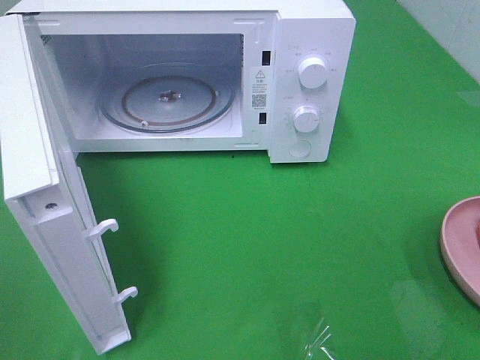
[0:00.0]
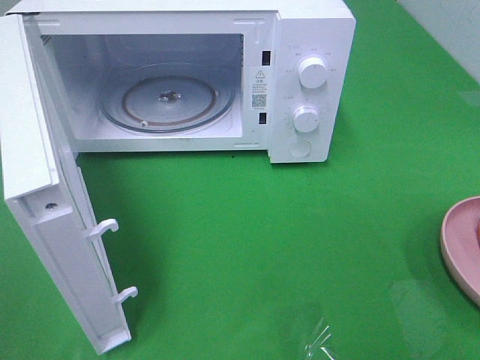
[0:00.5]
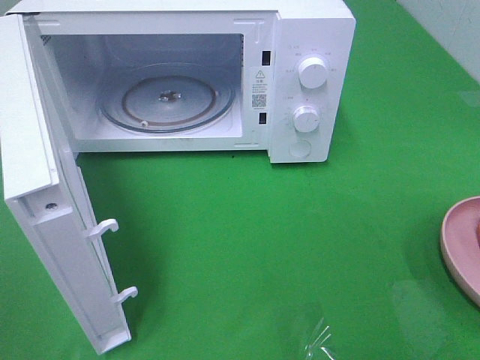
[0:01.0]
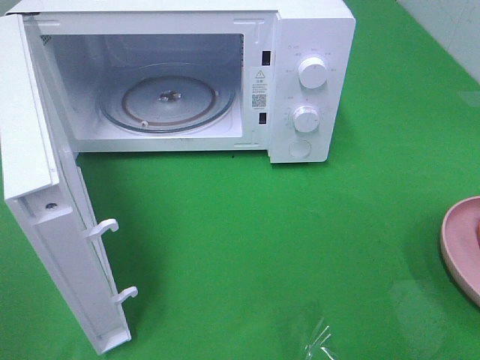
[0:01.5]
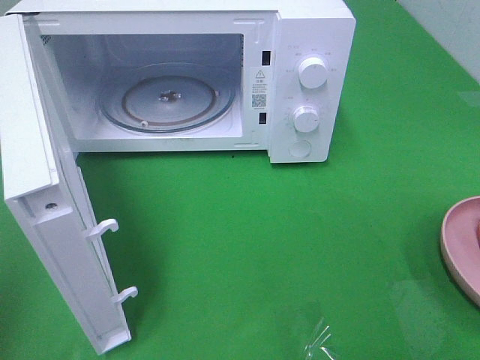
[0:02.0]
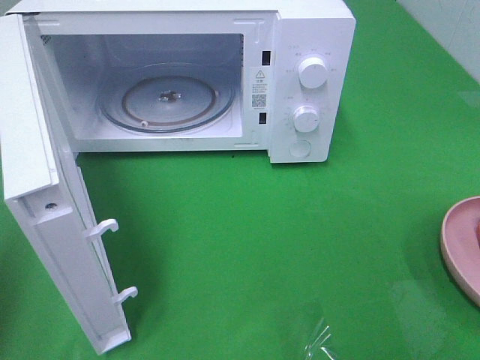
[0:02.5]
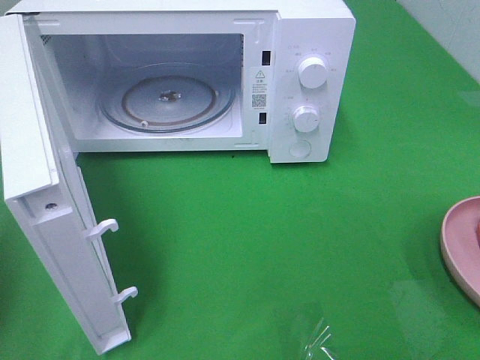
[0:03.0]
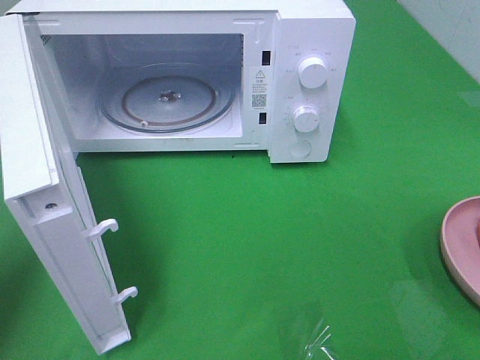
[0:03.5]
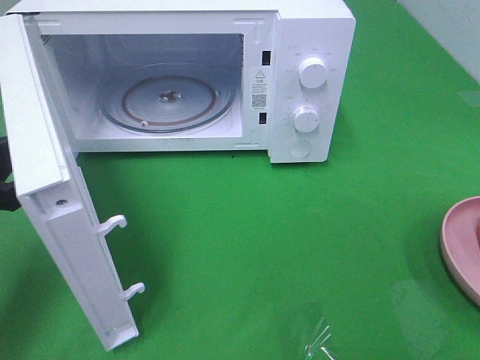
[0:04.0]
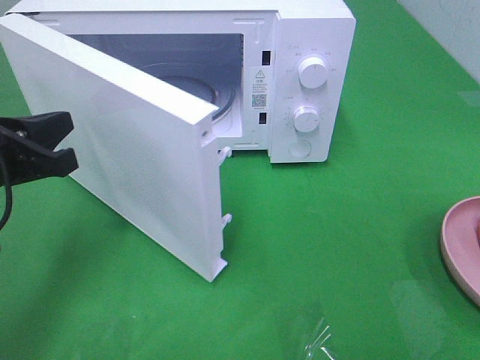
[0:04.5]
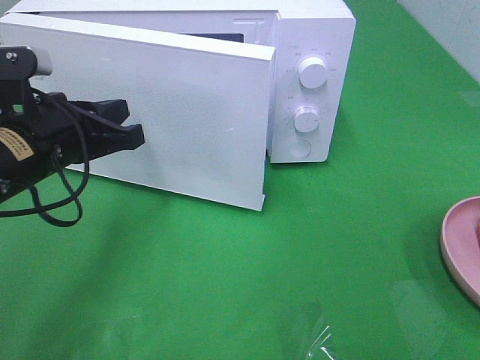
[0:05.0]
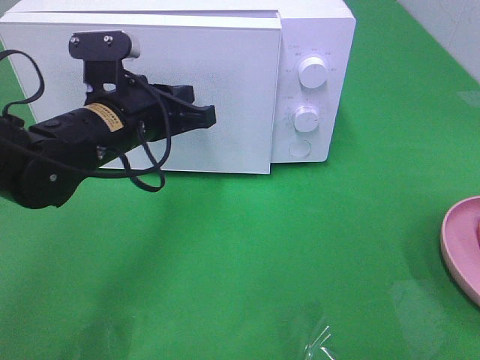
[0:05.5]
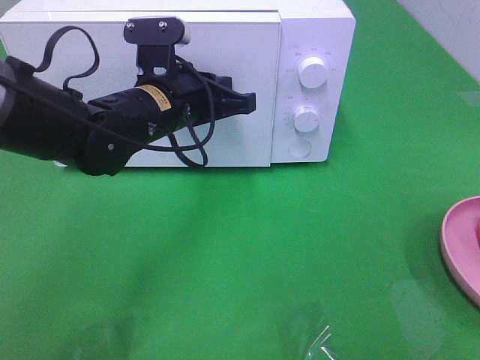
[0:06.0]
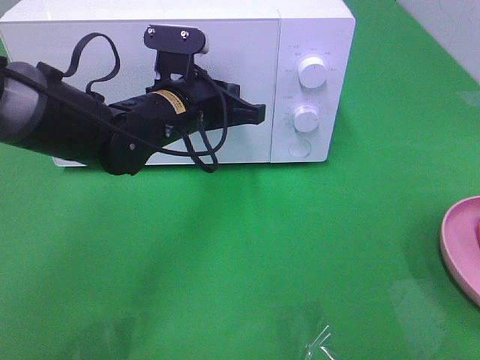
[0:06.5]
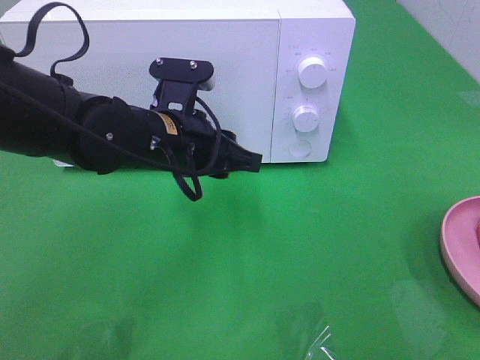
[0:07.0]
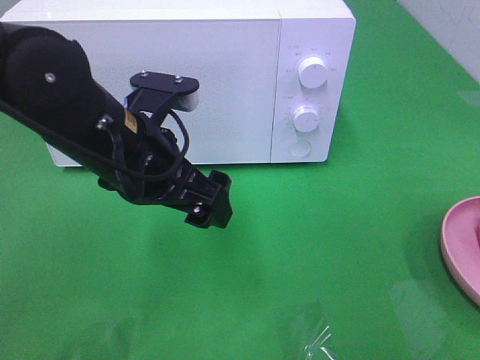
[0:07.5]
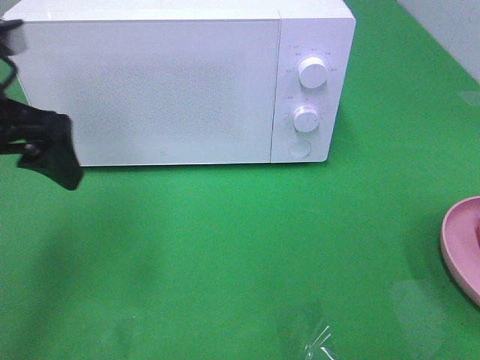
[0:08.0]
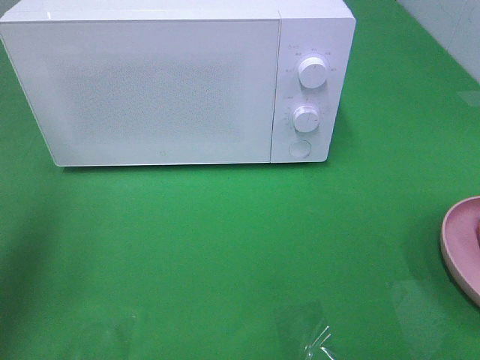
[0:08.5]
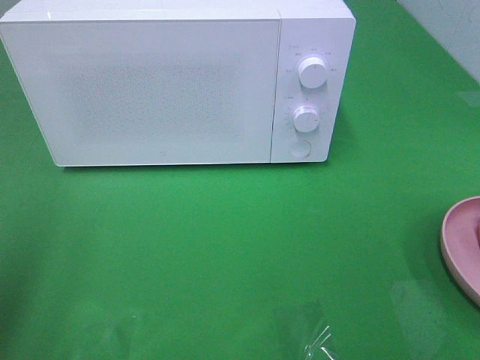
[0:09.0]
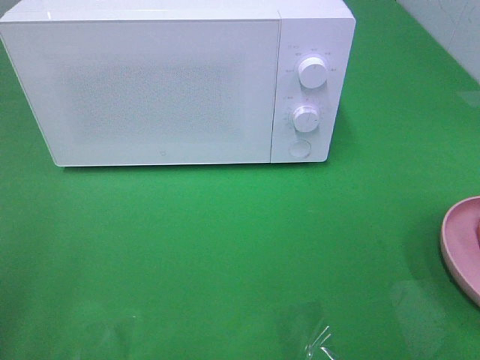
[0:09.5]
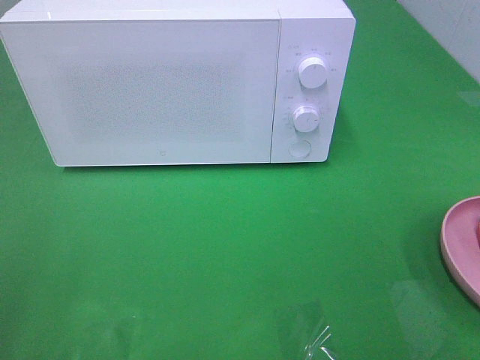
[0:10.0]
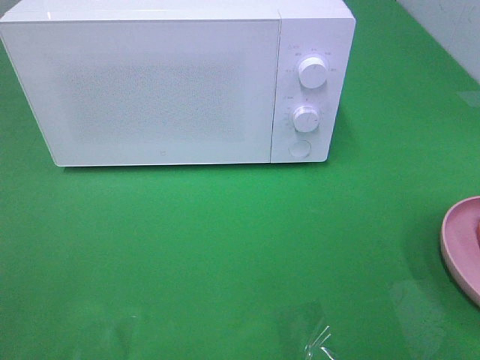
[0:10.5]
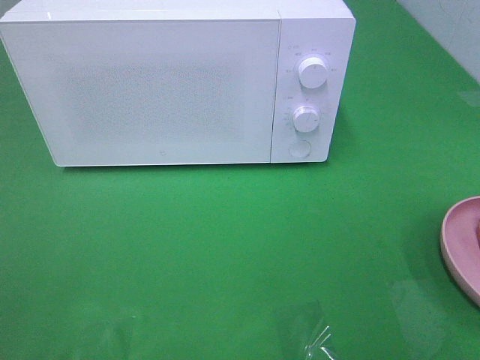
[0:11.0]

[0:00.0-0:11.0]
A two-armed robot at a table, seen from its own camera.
Task of the whole recording: Heat the burger.
Step, 0:00.0 to 0:07.0: Left hand: close the microwave door.
0:03.5 to 0:05.5: The left gripper is displaced to the right and forward by roughly 25 cm.
0:05.5 to 0:07.5: The left gripper is displaced backward by roughly 5 cm, and opens up.
0:07.5 to 0:09.0: The left gripper shifts roughly 25 cm to the left and backward.

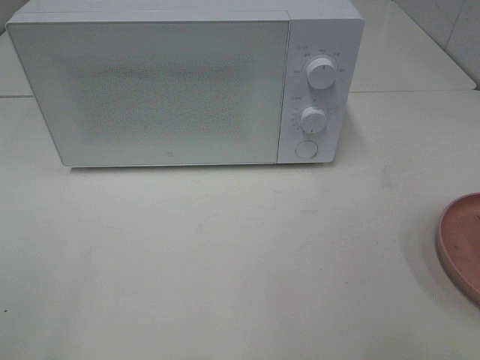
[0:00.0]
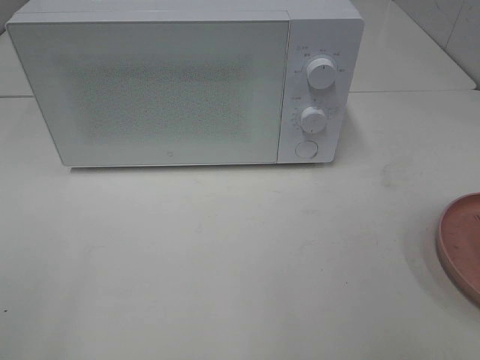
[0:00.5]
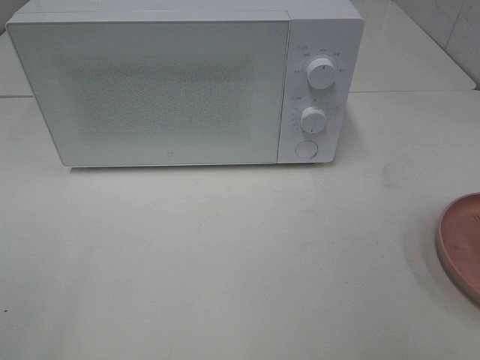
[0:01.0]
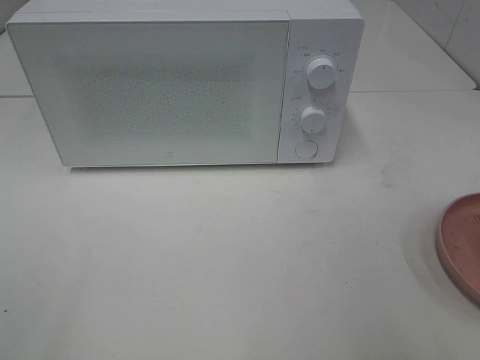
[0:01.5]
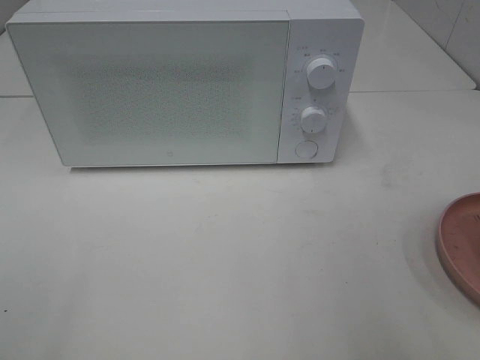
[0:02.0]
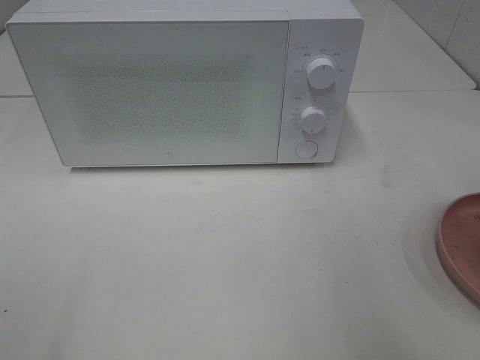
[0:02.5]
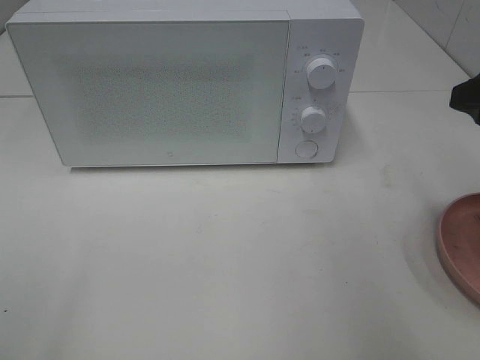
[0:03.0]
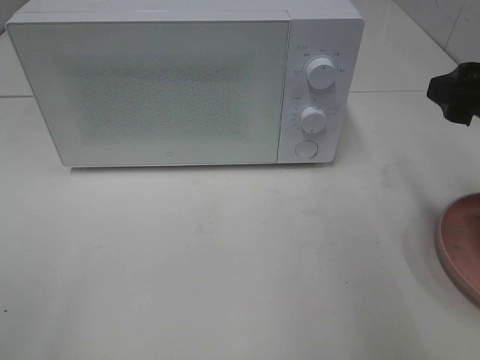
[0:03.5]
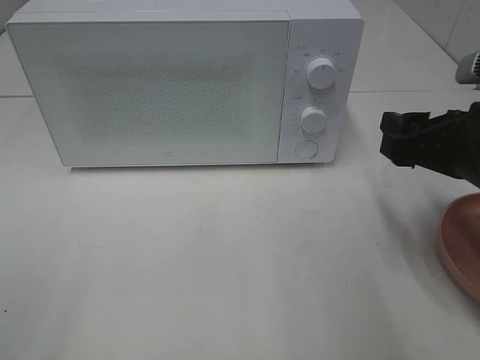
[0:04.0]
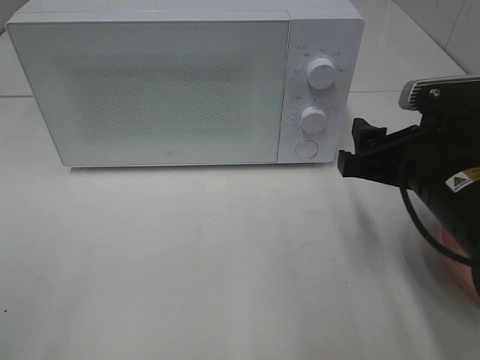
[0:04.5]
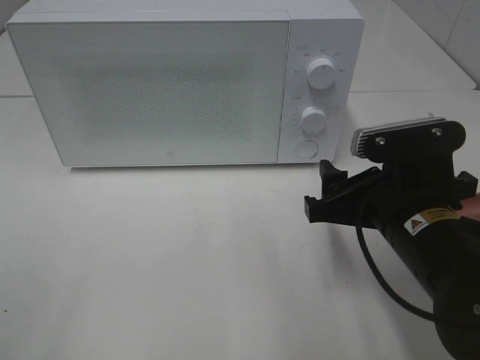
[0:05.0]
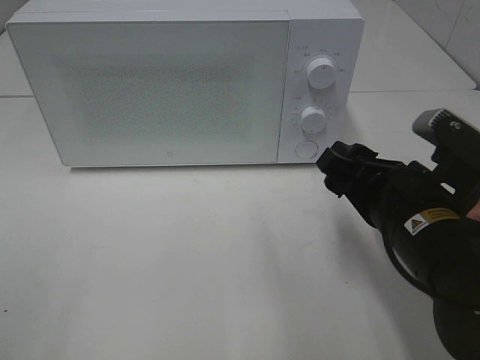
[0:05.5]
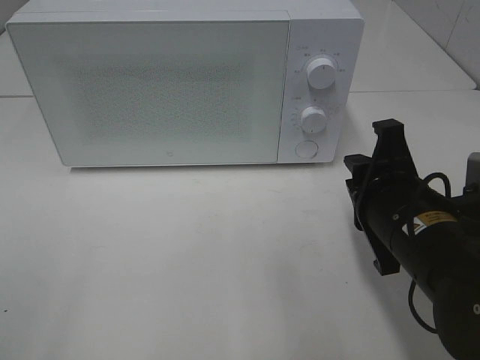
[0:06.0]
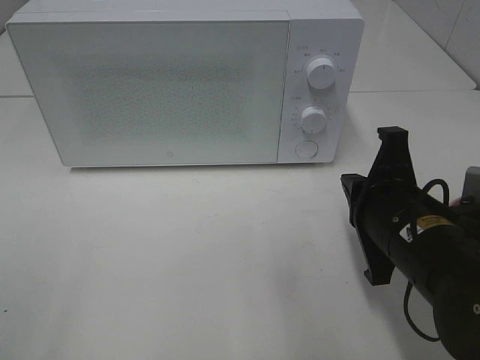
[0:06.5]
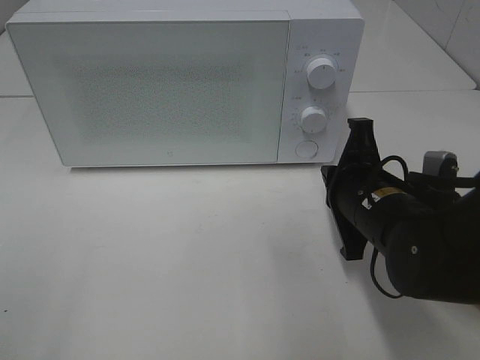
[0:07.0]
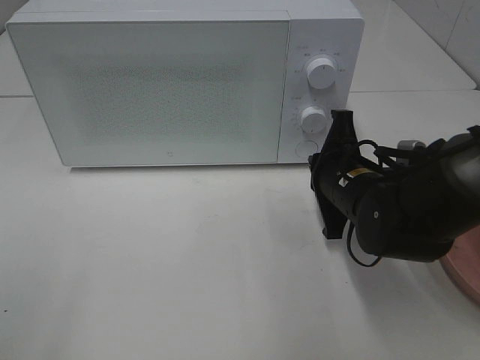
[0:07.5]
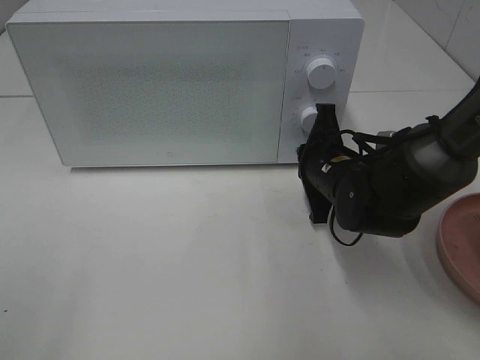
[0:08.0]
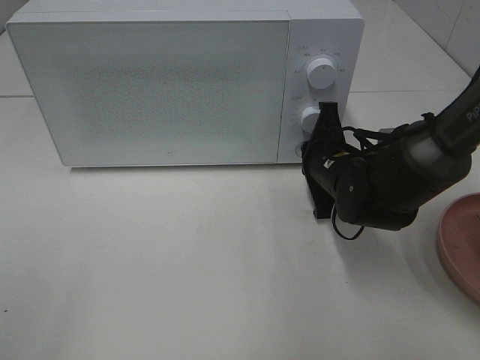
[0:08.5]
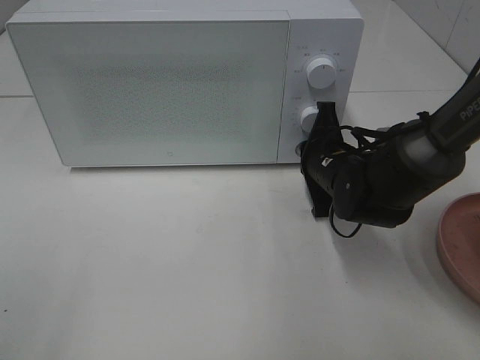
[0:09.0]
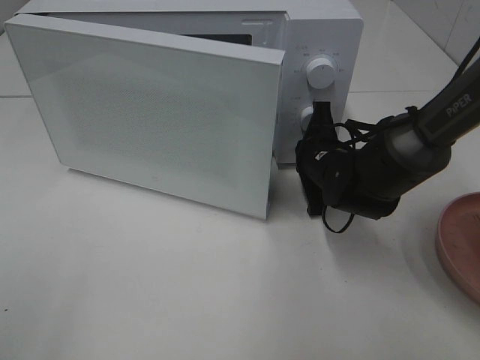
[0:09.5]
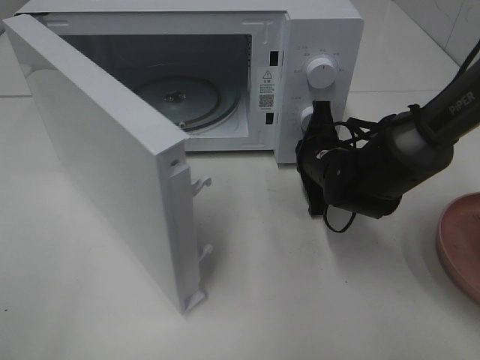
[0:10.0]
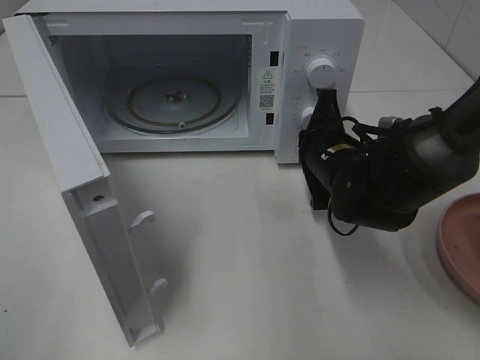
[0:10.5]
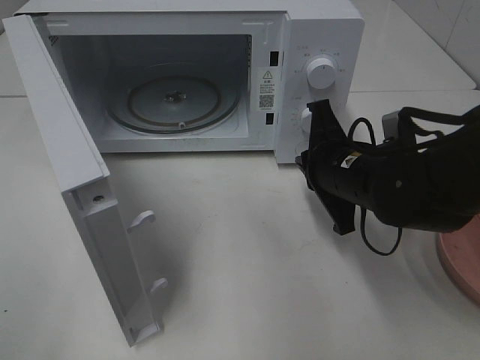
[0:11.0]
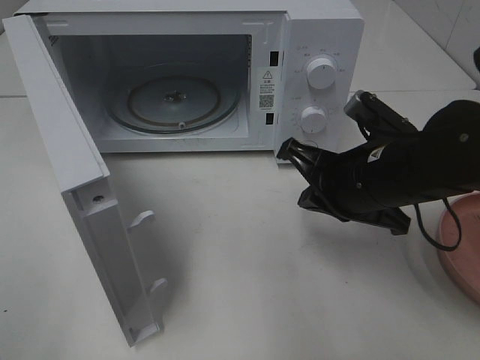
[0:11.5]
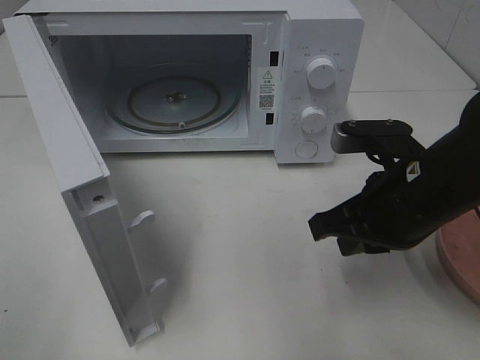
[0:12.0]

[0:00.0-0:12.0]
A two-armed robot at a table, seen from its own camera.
Task of the whole recording: Heat the burger.
Step, 0:00.0 to 0:10.5: Right hand: press the switch.
0:02.0 to 0:04.0: The right gripper travels downward, forward and to the left by about 15 cm.
0:04.0 to 0:06.0: The right gripper is displaced to the left by some 5 cm, and closes.
0:06.0 to 0:08.0: The right gripper is displaced forward and downward by approximately 15 cm.
0:10.0 to 0:12.0: The right gripper travels backward and upward by roughly 15 cm.

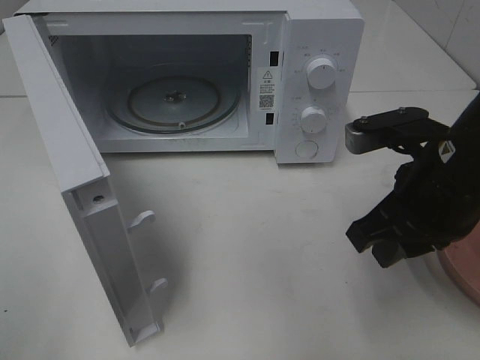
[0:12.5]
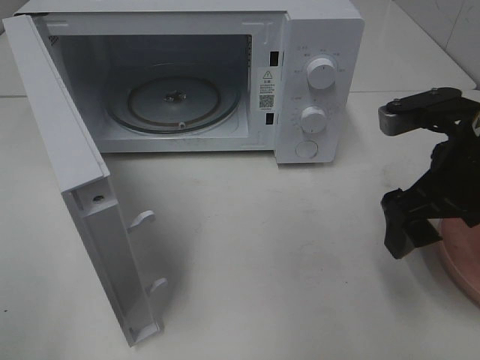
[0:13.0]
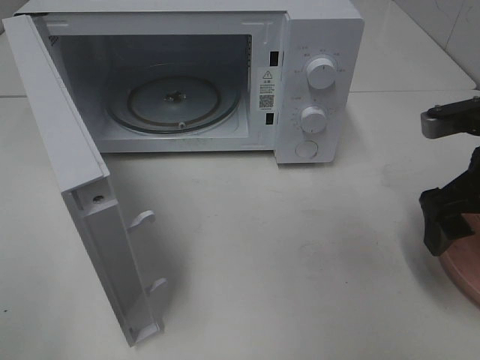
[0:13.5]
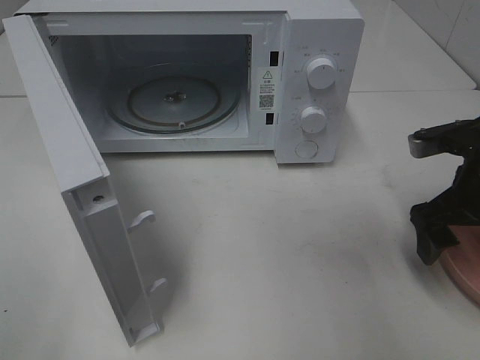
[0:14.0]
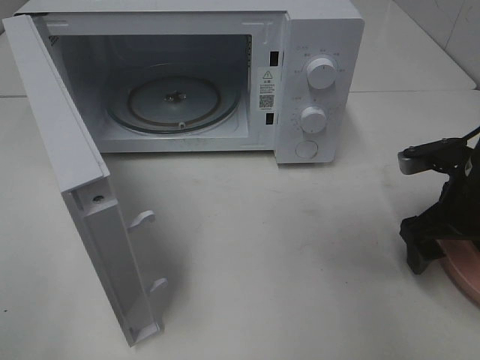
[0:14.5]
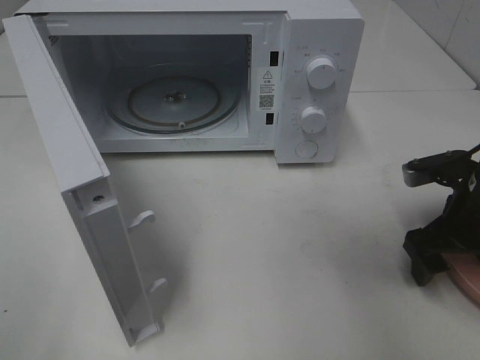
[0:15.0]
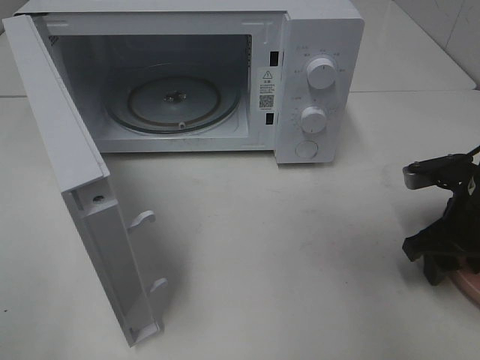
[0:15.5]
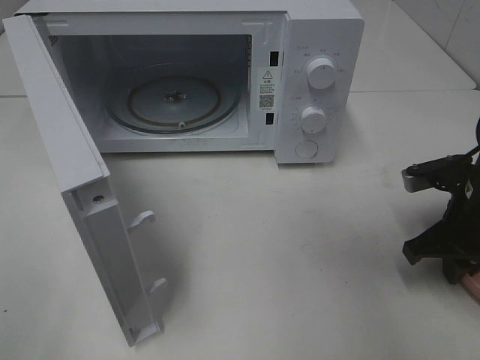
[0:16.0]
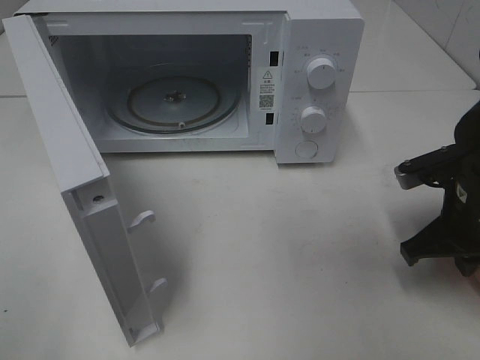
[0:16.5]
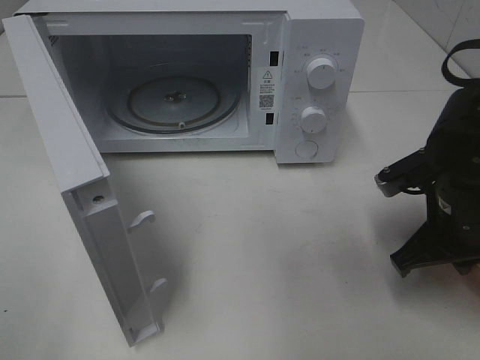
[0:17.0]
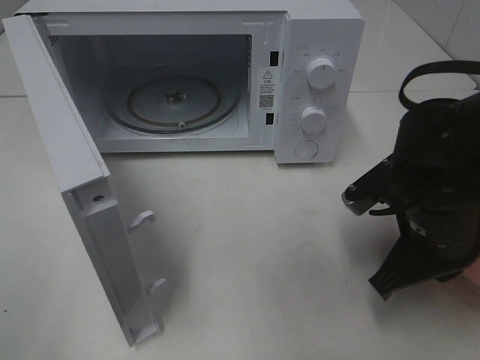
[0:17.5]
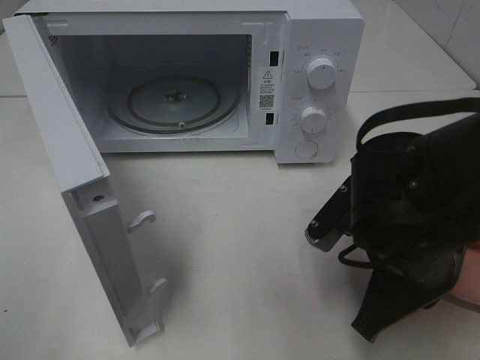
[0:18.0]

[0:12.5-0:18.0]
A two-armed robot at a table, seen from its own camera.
Task of the whole recording: Heat the burger.
Step, 0:12.5 to 0:16.0: Right hand: grab the plate with the hamburger.
0:12.5 to 0:14.5: The right gripper heads to the right, downward and forward, covering about 15 cm, and opens its fingers.
0:14.5 to 0:16.0: The right gripper closes.
0:16.0 to 0:18.0: The right gripper goes approximately 15 cm to the left and backward.
